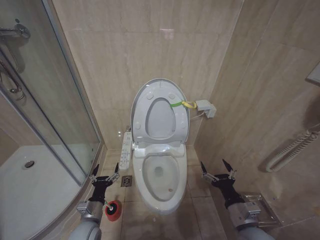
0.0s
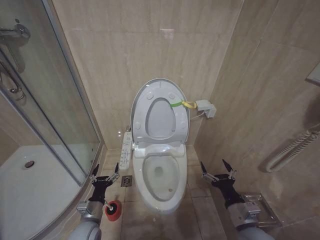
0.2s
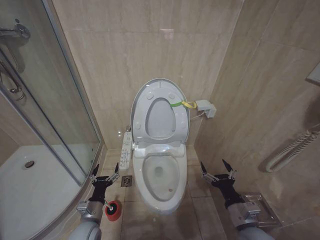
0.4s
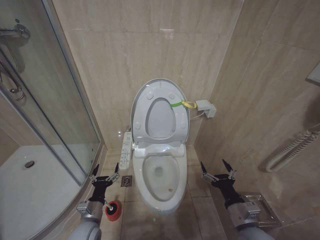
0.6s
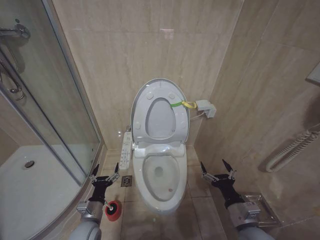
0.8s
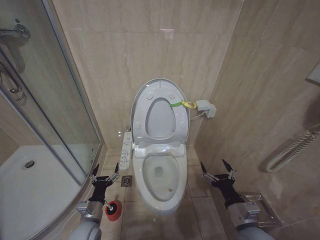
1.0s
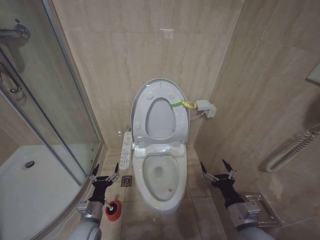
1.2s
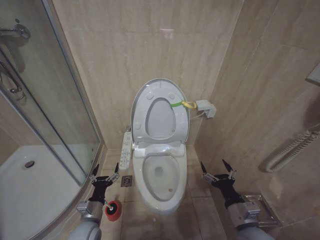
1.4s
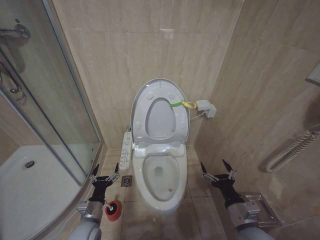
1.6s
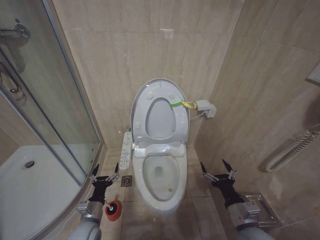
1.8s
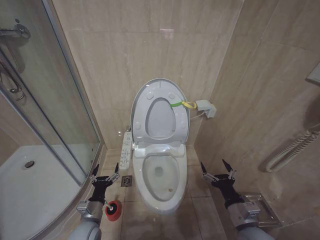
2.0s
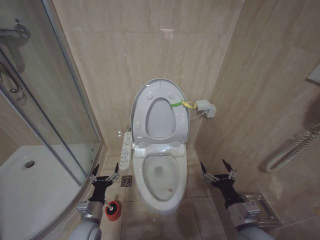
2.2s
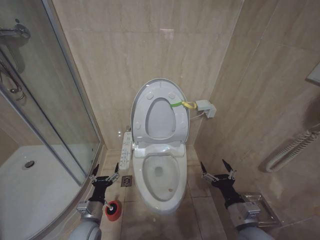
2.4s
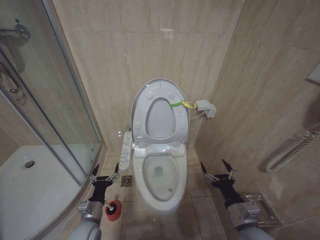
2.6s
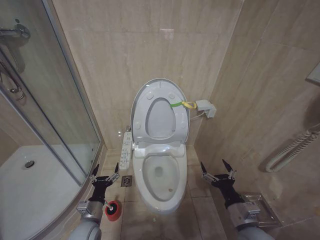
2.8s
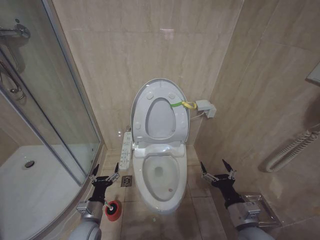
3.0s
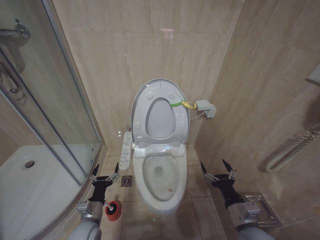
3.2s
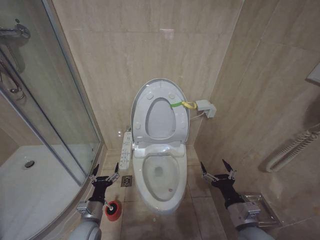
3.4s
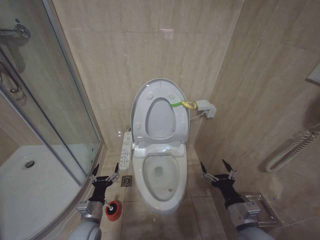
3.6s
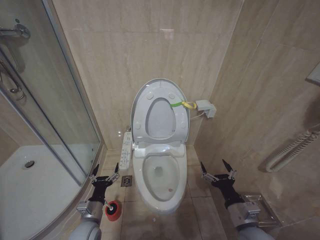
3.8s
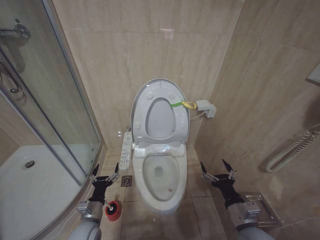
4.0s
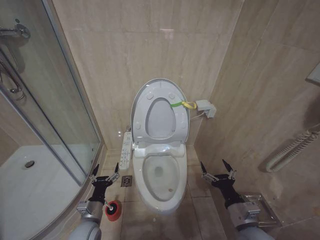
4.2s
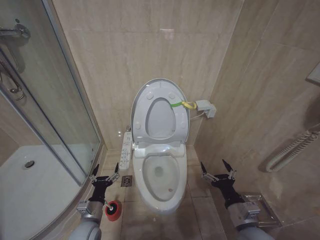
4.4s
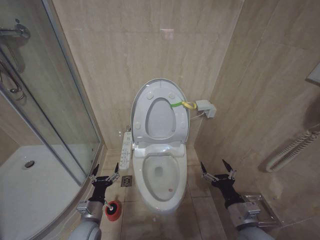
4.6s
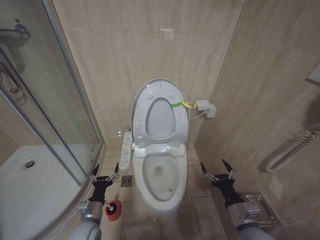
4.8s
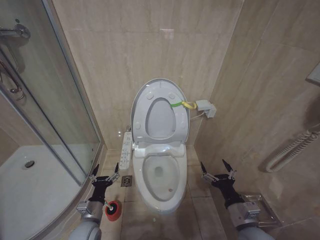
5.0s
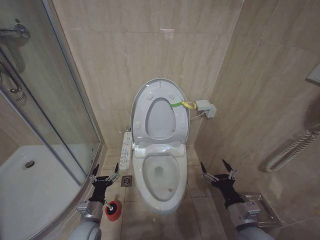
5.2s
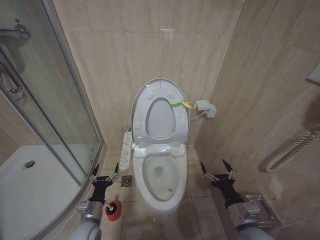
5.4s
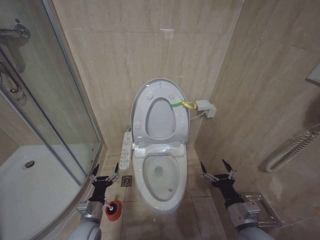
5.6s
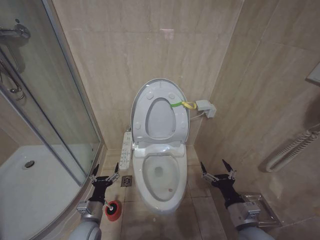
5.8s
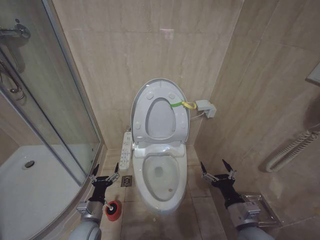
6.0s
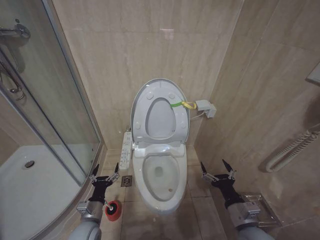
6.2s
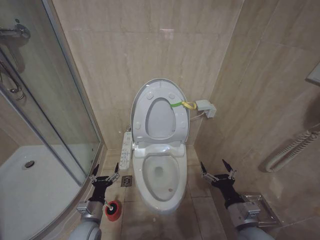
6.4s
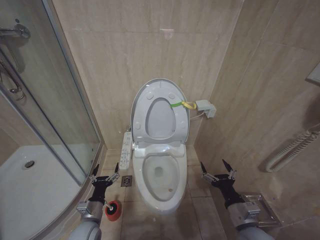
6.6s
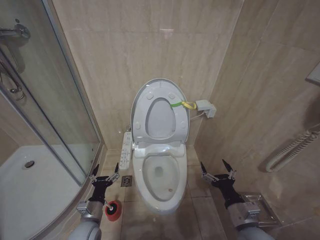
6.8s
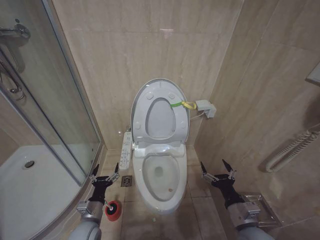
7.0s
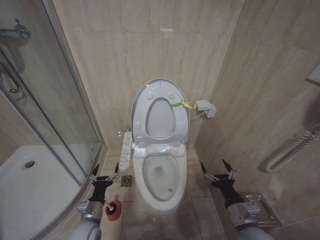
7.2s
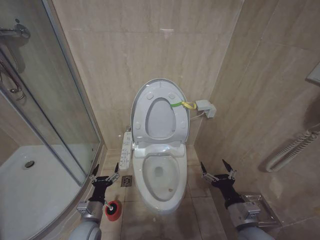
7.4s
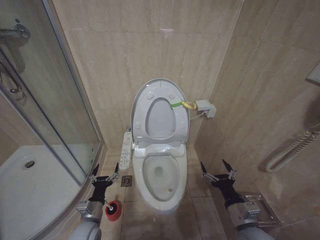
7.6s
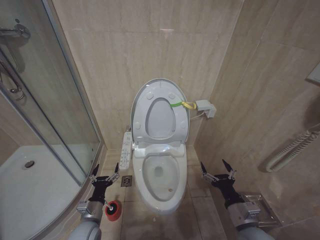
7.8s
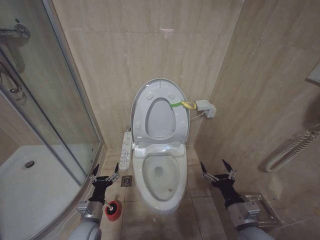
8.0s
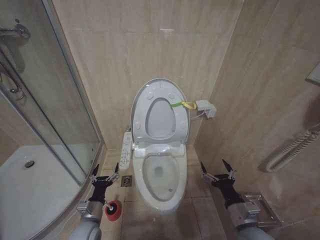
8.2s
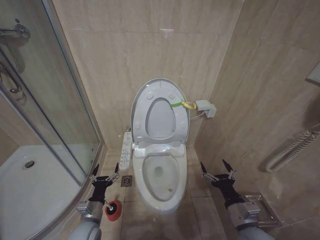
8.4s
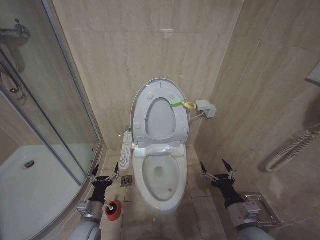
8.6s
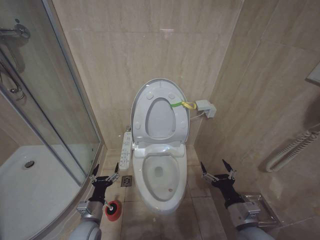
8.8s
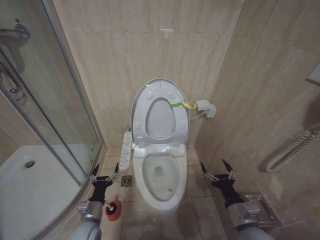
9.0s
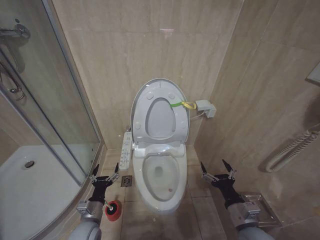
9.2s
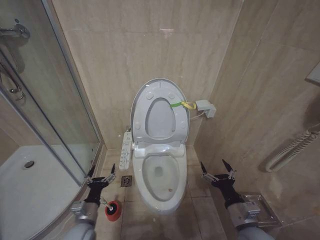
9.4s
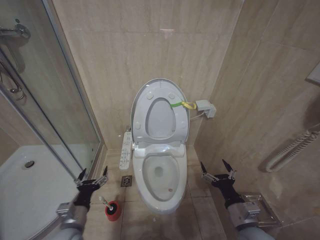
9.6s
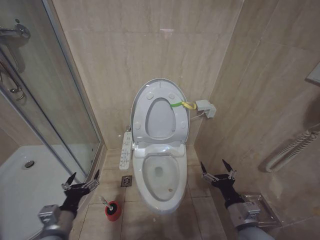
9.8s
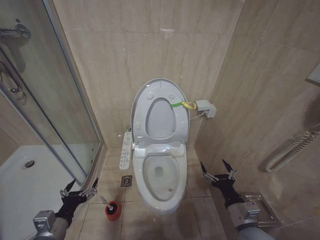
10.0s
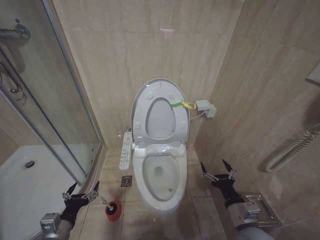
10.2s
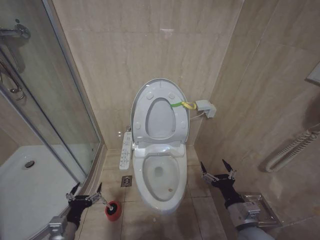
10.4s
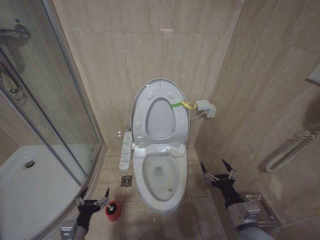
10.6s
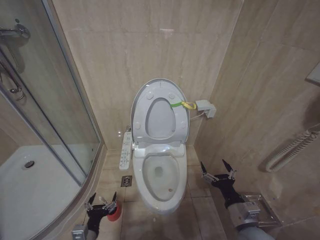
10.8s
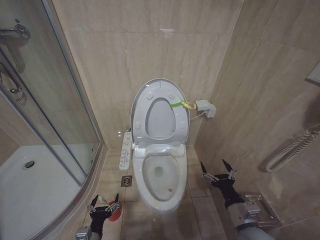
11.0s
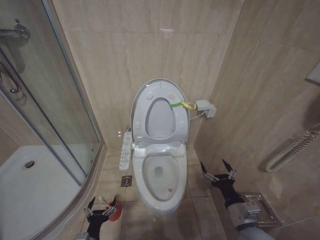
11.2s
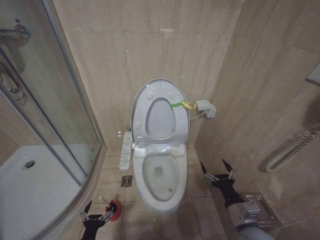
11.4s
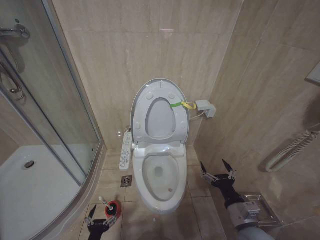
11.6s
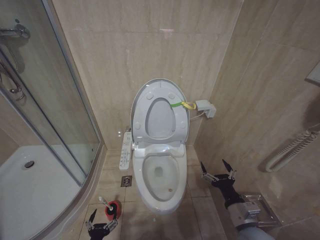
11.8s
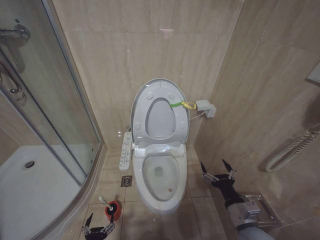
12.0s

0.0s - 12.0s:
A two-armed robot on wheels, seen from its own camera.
Task of the whole recording: Open the toilet lid, clean the toilet bowl with a toilet brush, close the toilet lid, and flush.
0.0s - 9.0s: Both grippers stay put.
9.0s - 10.4s: The left gripper travels to the left and backward by approximately 10 cm.
10.4s - 12.0s: The left gripper moves downward, about 15 cm.

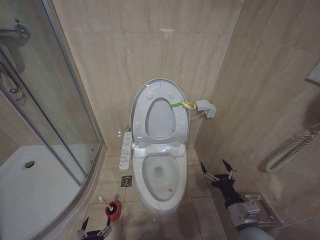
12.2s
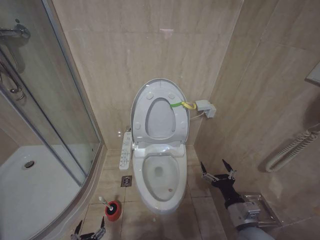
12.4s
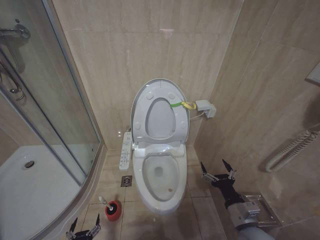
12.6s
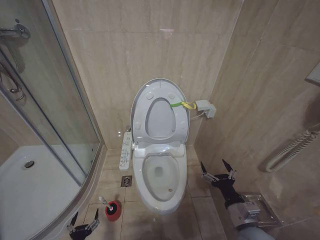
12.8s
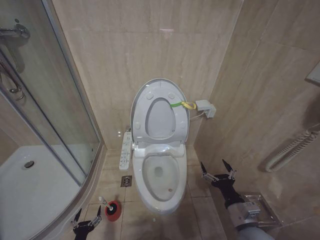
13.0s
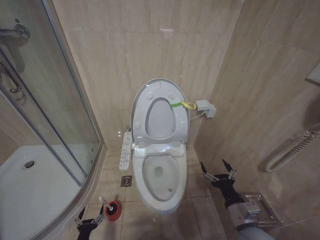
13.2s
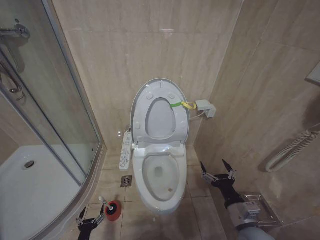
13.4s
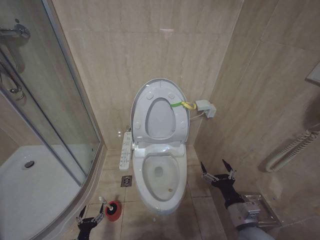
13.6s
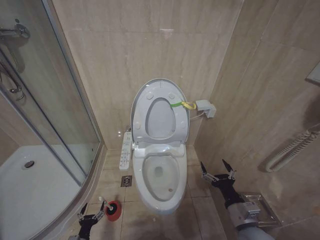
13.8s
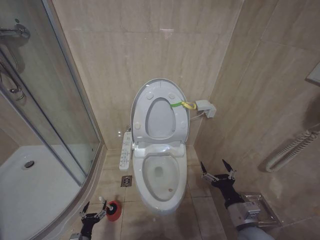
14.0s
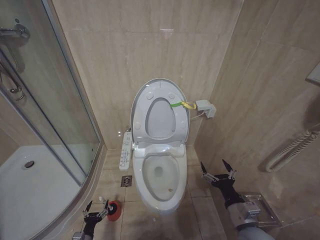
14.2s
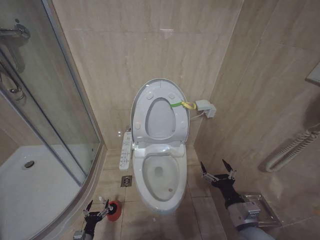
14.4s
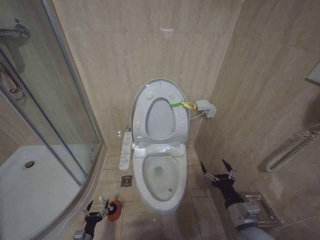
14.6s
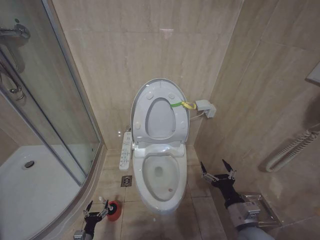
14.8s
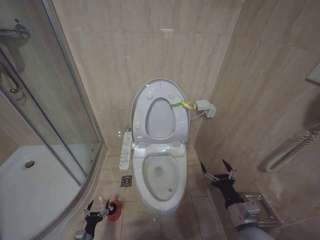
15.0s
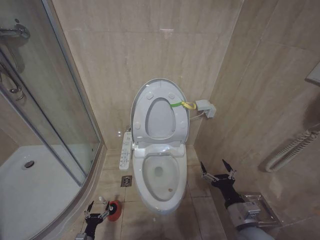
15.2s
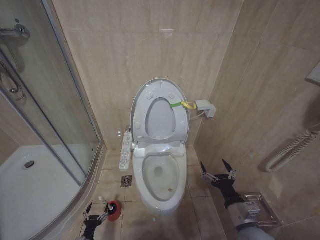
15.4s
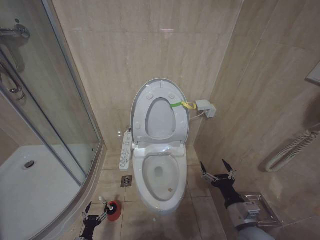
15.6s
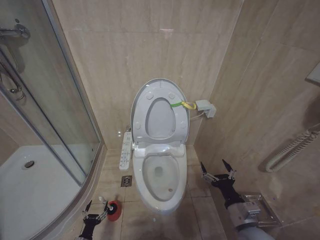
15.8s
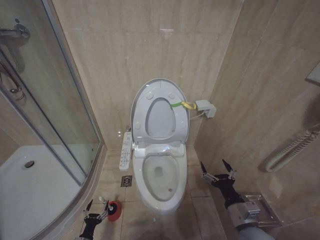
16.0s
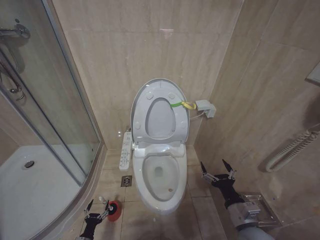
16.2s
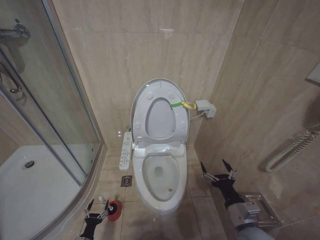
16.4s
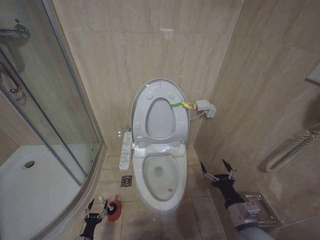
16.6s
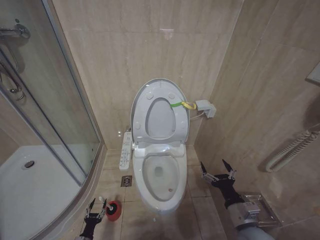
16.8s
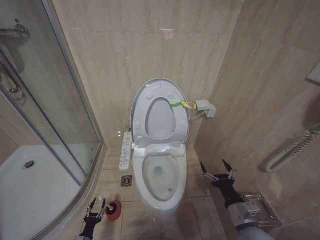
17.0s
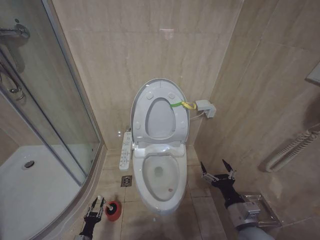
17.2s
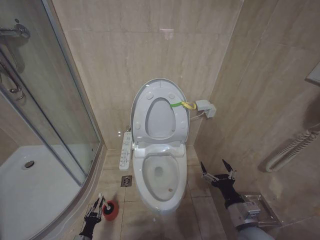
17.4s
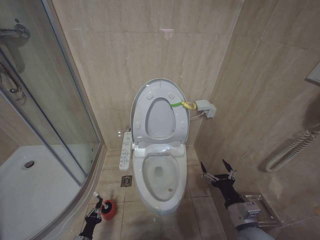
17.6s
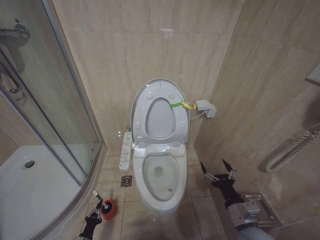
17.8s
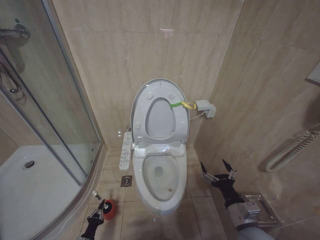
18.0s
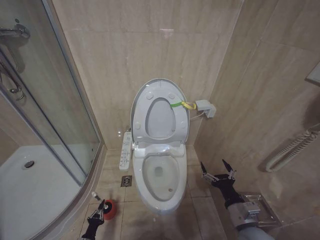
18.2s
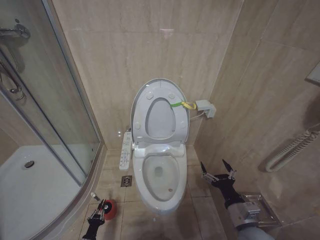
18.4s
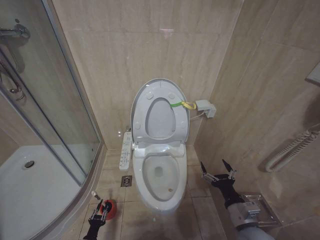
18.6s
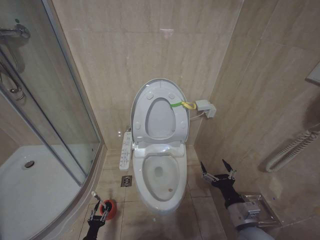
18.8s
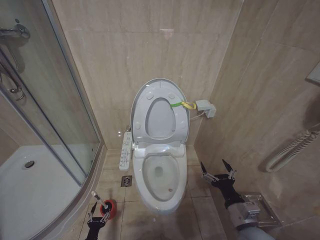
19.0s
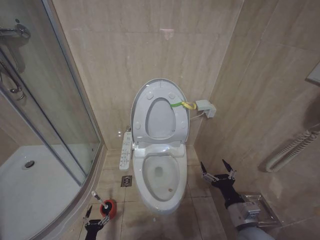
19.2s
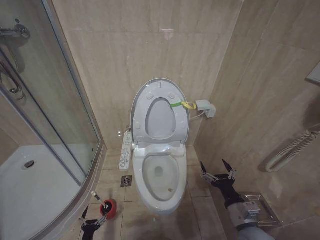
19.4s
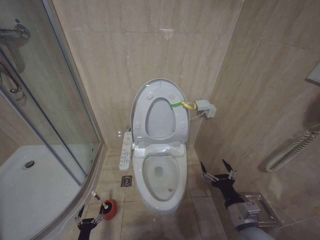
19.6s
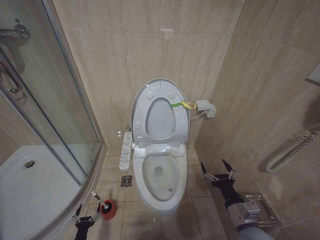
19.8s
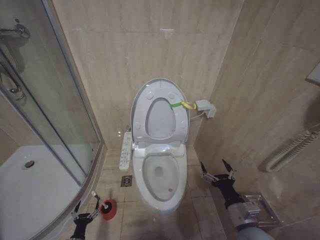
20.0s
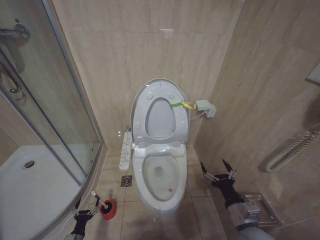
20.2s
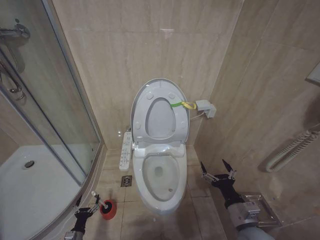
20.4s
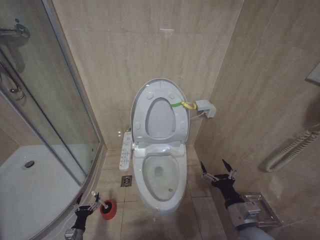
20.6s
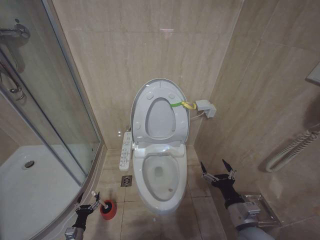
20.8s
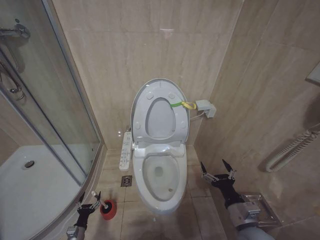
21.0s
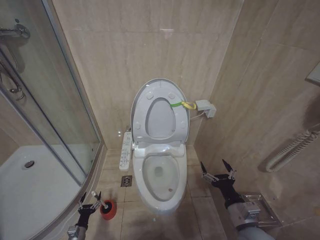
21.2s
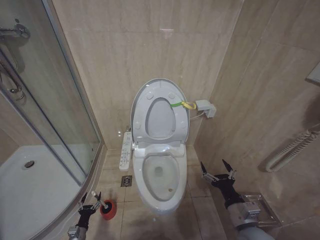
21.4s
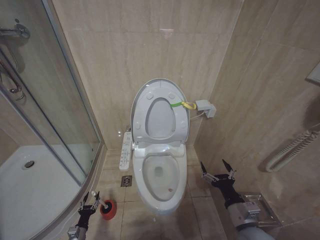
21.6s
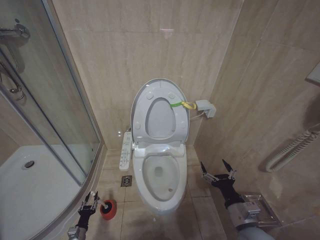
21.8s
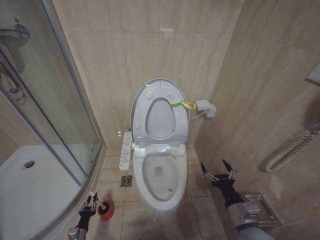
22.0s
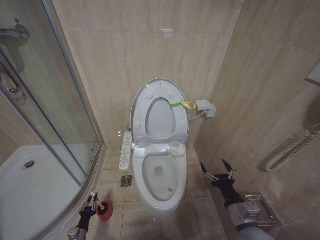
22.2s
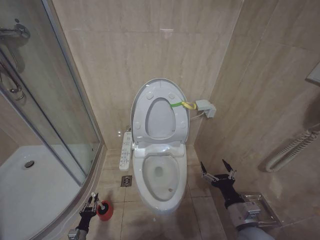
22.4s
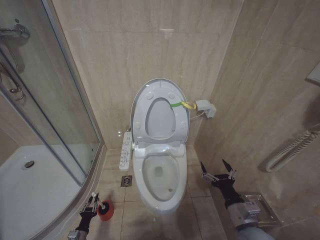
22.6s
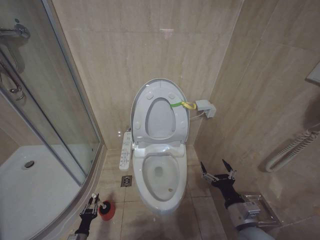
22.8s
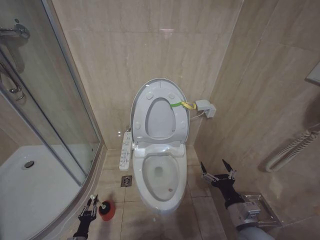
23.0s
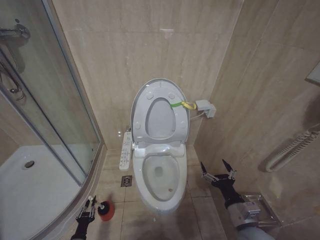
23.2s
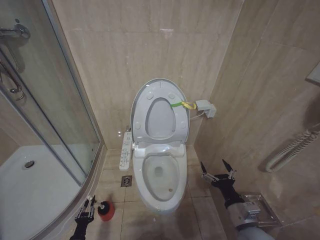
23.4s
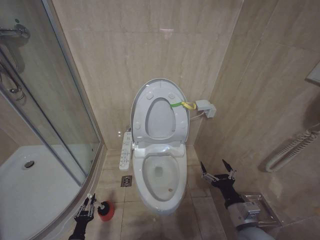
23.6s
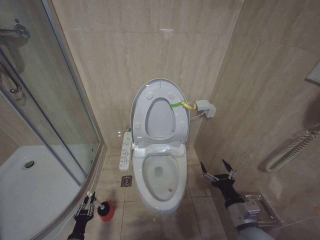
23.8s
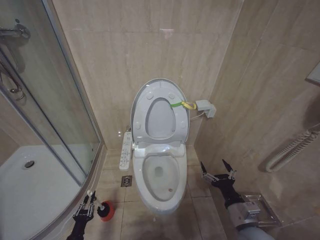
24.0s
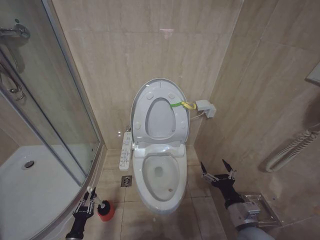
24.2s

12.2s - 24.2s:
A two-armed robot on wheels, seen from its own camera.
Task of the whole recording: Open the toilet lid, clean the toilet bowl with a toilet brush, close the toilet lid, and flush.
12.2s - 13.8s: The left gripper is displaced downward, to the left and forward by some 15 cm.
16.6s - 18.2s: The left gripper closes.
18.2s - 19.8s: The left gripper opens.
19.8s - 21.2s: The left gripper is displaced forward by some 5 cm.
21.2s - 22.6s: The left gripper closes.
22.6s - 24.2s: The left gripper travels upward and backward by about 10 cm.
